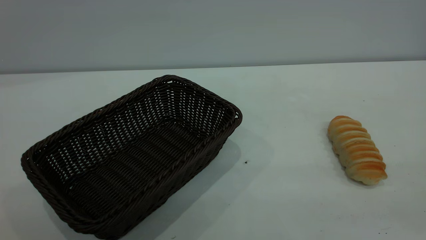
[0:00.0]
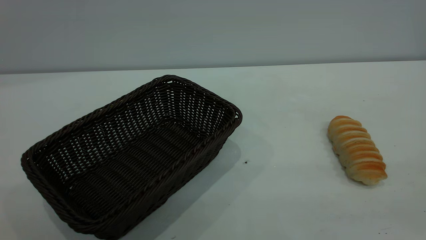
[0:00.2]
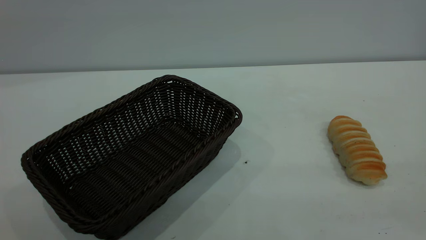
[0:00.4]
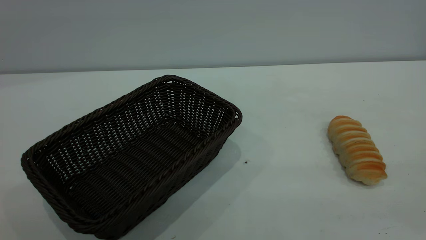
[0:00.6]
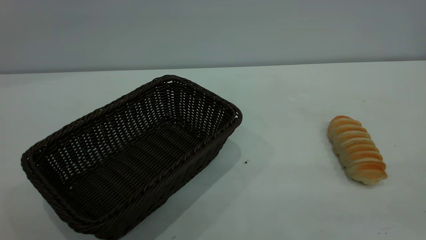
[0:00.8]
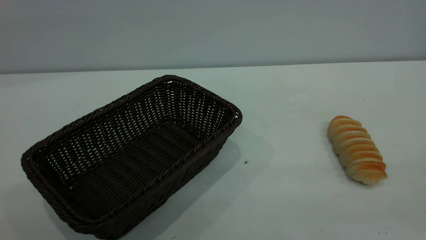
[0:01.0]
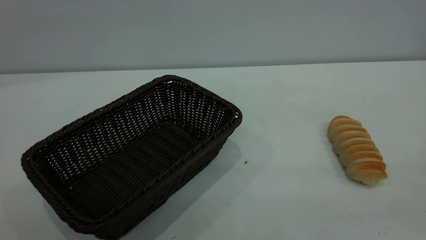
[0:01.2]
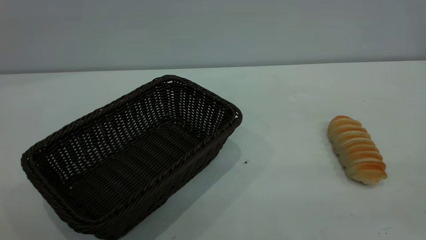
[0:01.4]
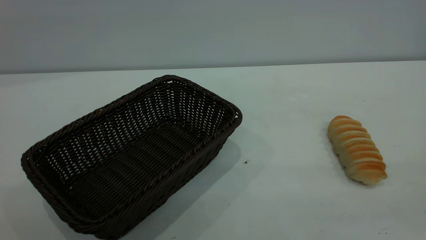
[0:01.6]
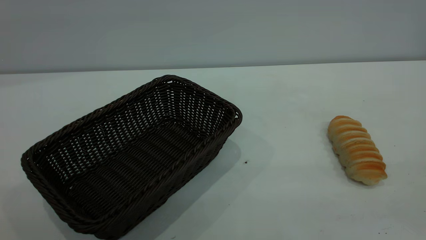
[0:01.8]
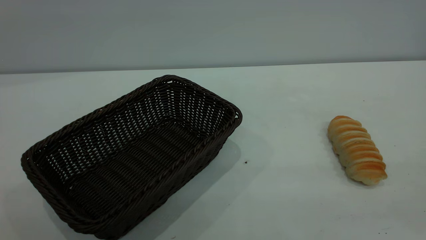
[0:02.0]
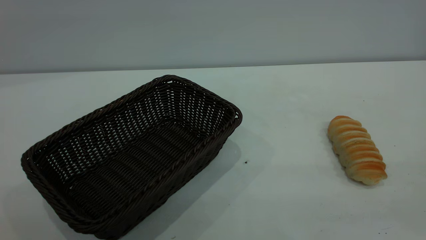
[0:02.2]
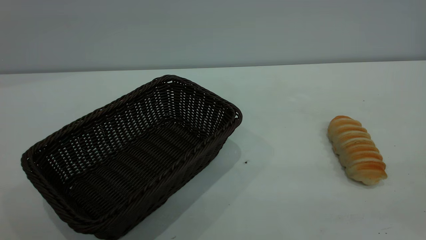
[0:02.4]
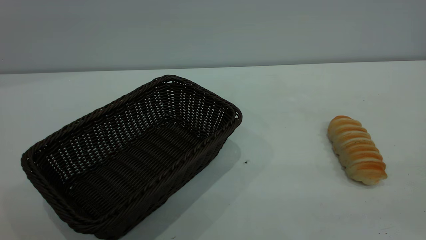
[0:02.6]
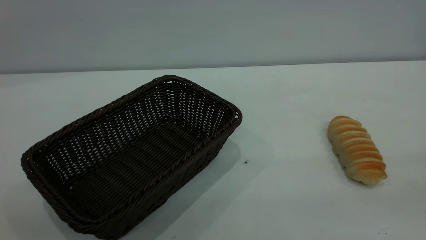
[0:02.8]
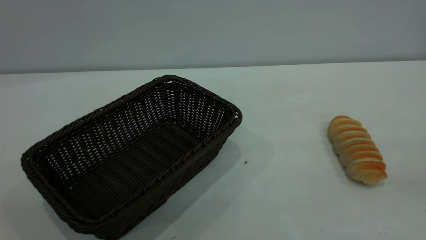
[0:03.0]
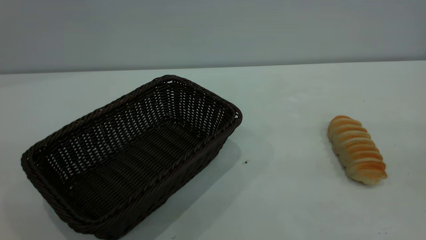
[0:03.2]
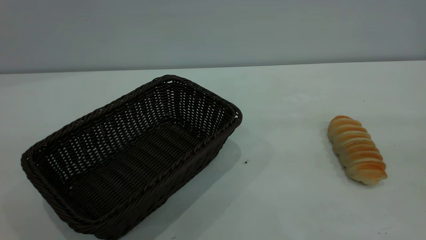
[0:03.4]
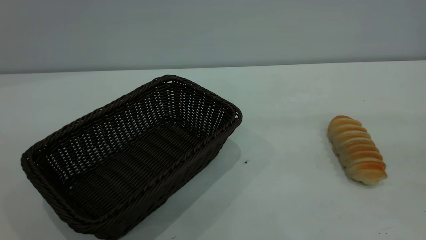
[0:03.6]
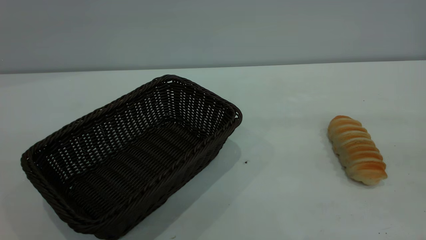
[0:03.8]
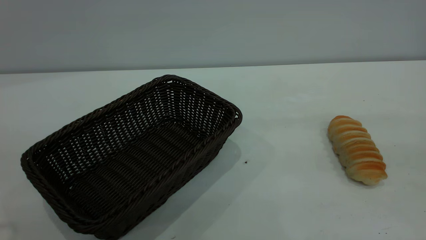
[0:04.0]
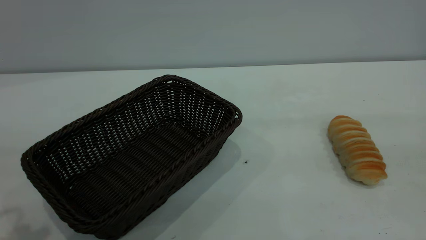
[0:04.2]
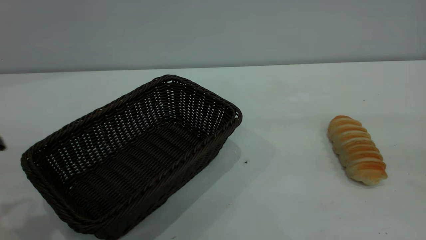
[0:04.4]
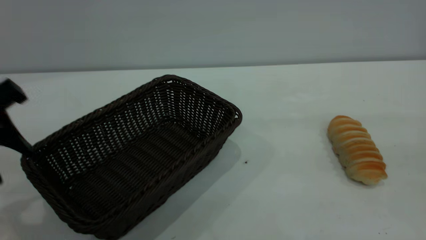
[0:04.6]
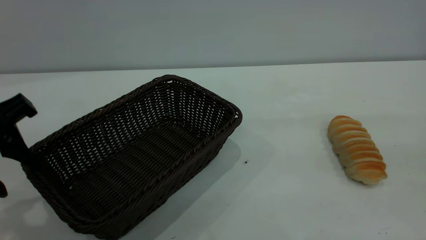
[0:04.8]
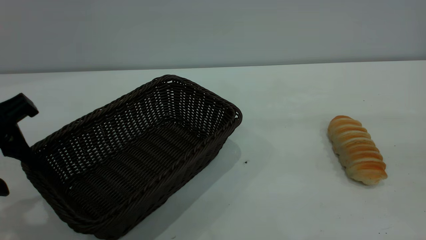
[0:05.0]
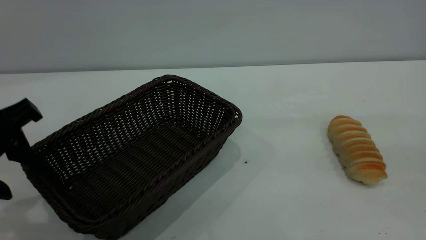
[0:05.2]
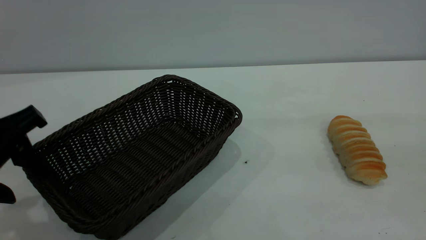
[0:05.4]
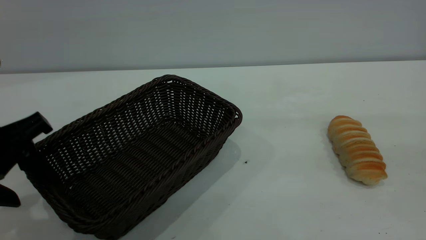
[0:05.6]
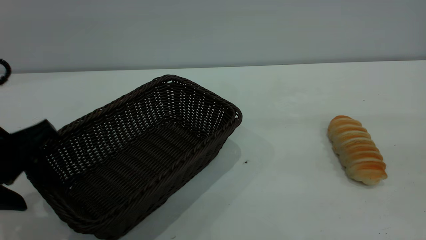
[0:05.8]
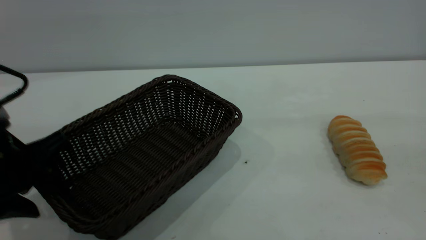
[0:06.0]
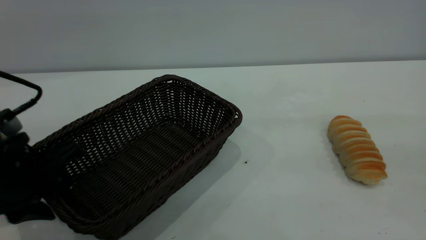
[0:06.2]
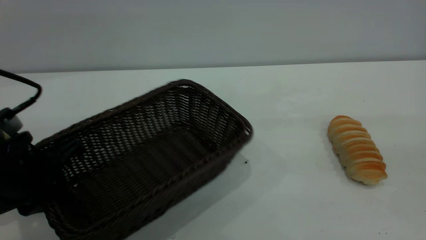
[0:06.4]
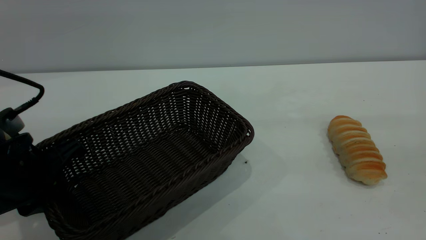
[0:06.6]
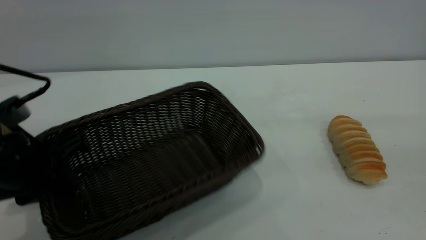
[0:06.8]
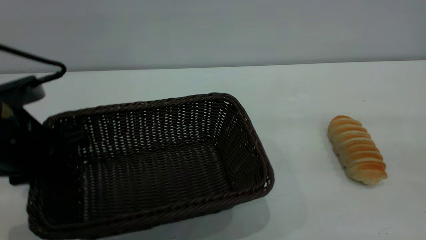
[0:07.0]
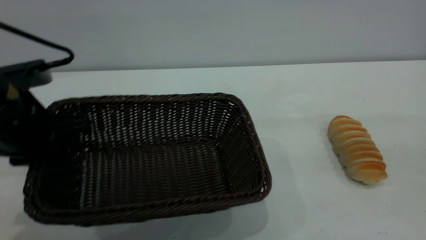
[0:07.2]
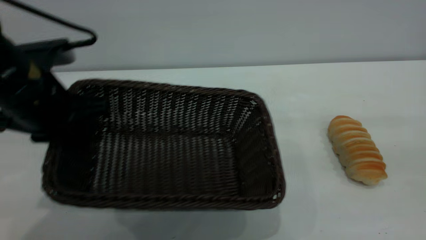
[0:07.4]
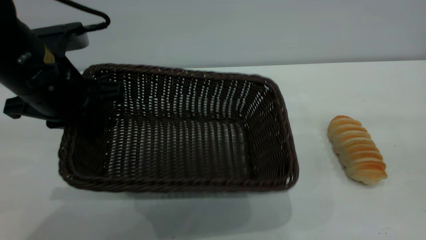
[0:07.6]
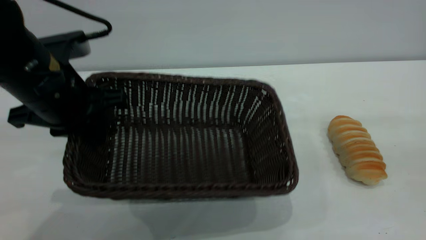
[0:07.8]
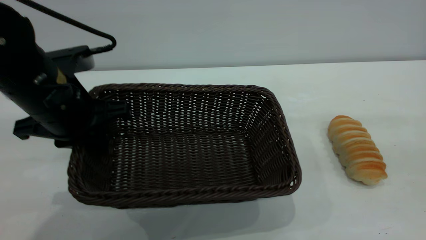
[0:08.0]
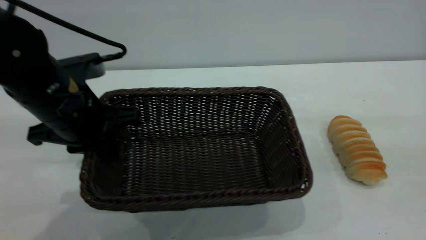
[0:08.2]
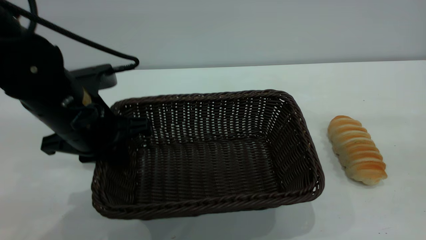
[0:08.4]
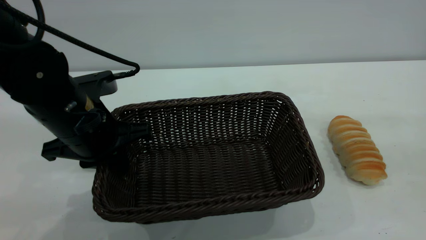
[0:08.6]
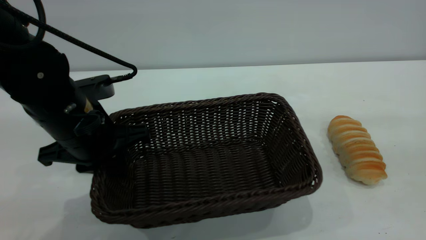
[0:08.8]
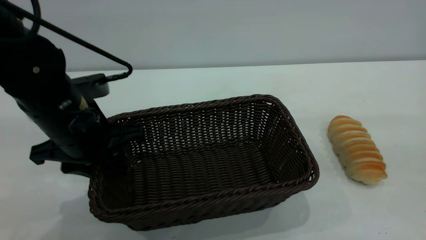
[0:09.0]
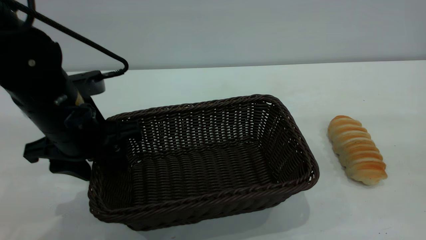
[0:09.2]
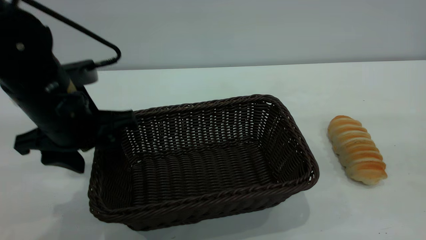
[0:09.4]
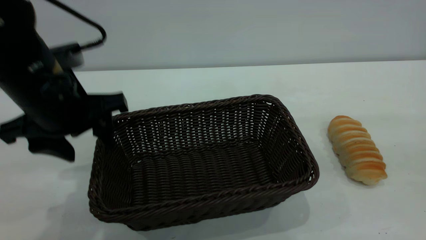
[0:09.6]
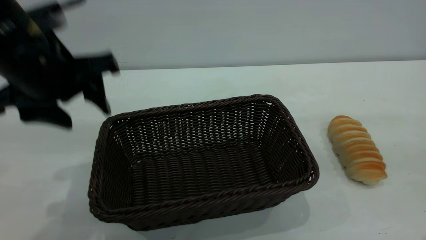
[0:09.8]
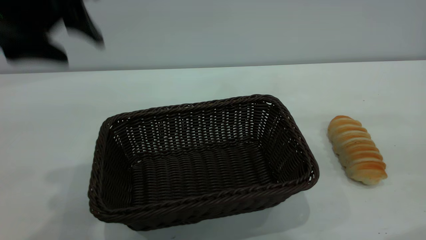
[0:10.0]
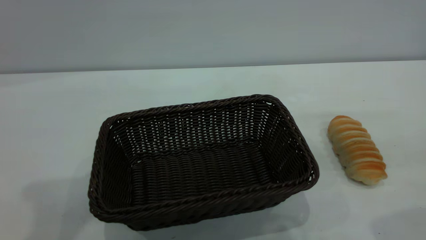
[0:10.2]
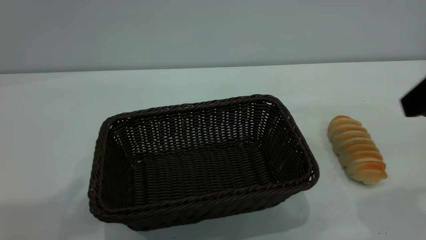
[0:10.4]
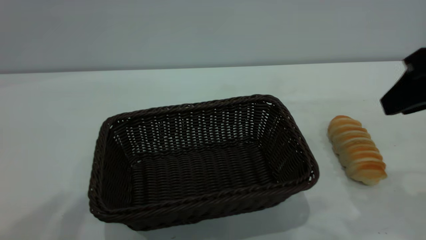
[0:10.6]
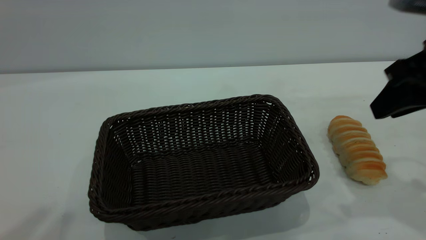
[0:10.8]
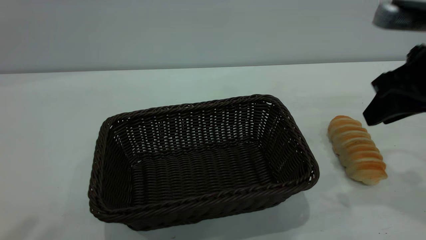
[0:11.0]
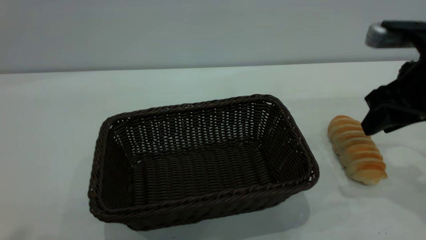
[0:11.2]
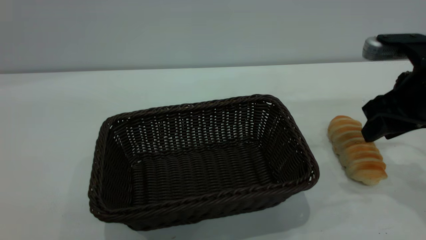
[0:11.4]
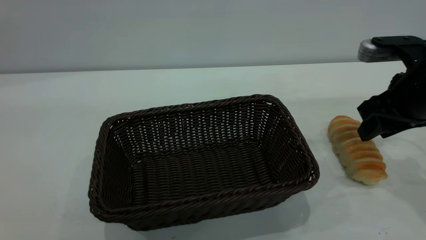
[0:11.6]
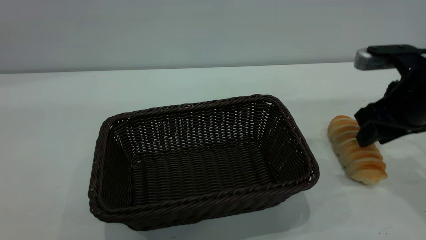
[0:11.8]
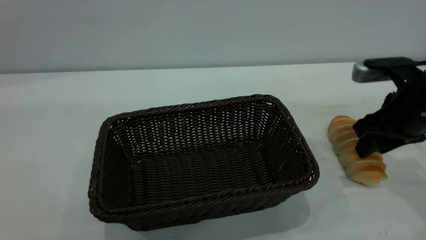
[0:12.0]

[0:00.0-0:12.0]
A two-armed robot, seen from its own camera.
Task of the whole recording: One hand grasps the black basket and places it in the middle of the table, while the other hand picks up the long bread and puts it into the black basket.
Step, 0:00.0 to 0:09.8: Move the basket to the center of view.
0:00.0 to 0:01.6: Both grippers stay about where they are.
0:04.4 to 0:06.0: The left gripper goes some 10 cm downward.
0:06.0 to 0:07.6: The left gripper heads forward, to the right and upward, covering some 10 cm, and closes up.
0:07.6 to 0:09.0: The left gripper shifts roughly 5 cm downward, and opens its fingers.
0:09.0 to 0:10.4: The right gripper travels forward by approximately 10 cm, while the left gripper travels upward by about 30 cm.
0:10.4 to 0:12.0: The right gripper shifts some 20 cm downward and forward.

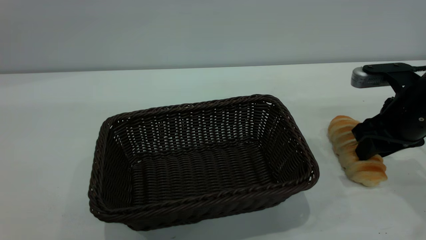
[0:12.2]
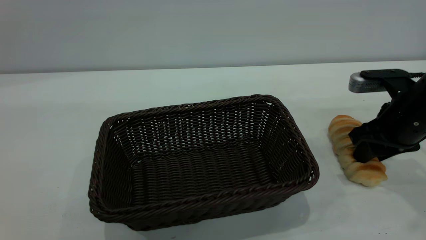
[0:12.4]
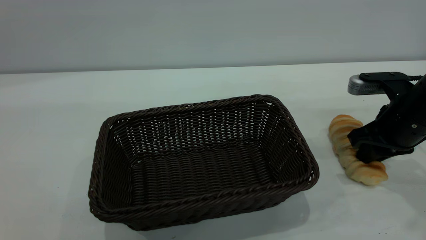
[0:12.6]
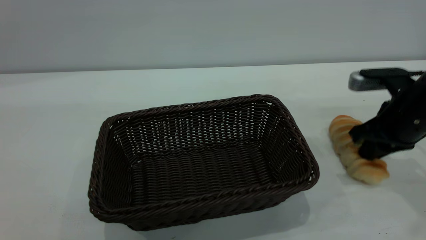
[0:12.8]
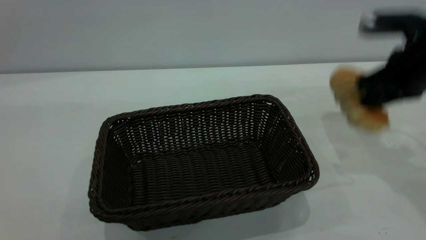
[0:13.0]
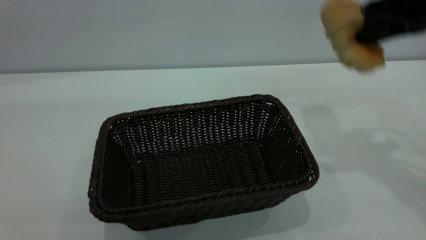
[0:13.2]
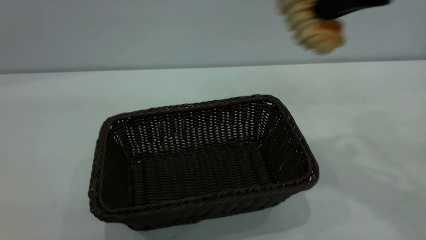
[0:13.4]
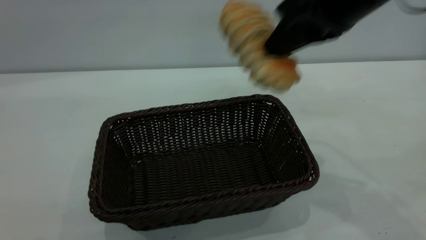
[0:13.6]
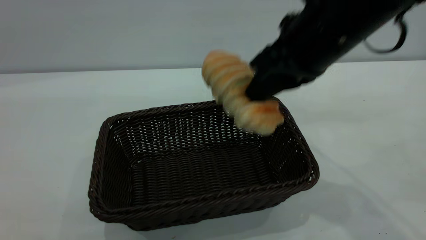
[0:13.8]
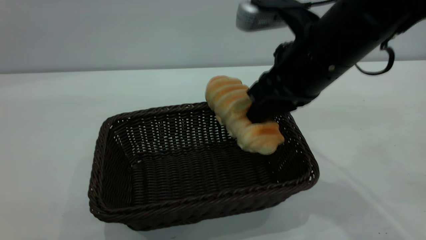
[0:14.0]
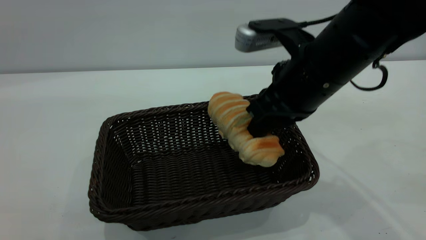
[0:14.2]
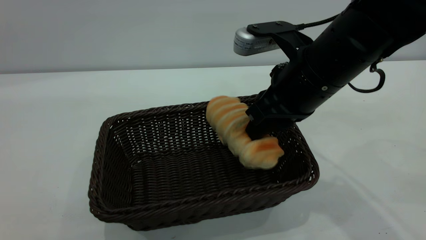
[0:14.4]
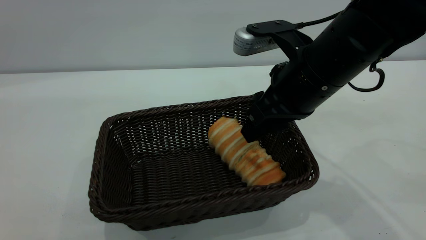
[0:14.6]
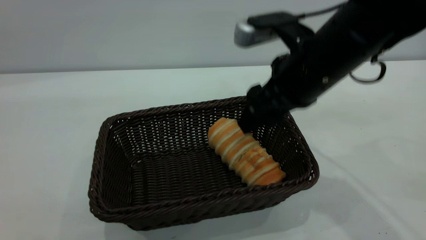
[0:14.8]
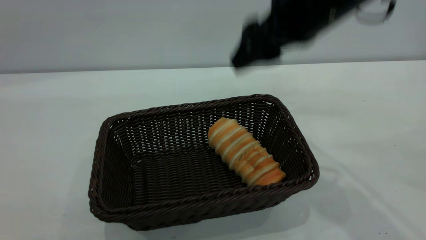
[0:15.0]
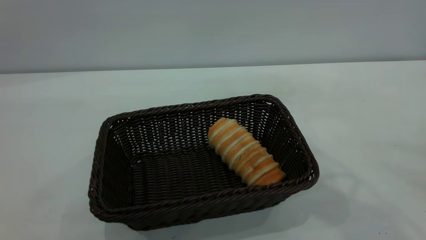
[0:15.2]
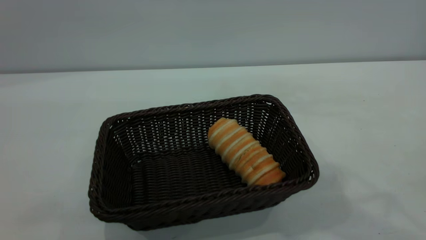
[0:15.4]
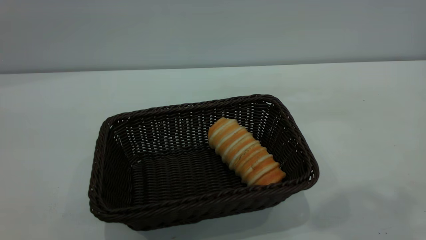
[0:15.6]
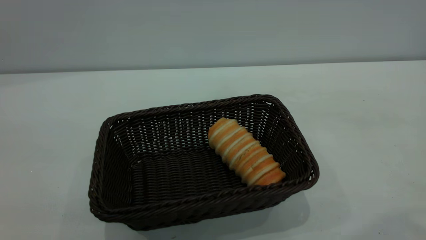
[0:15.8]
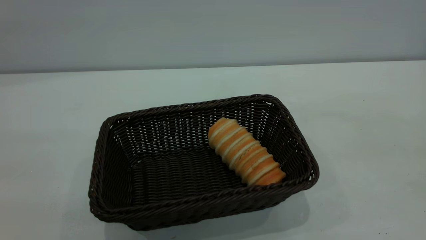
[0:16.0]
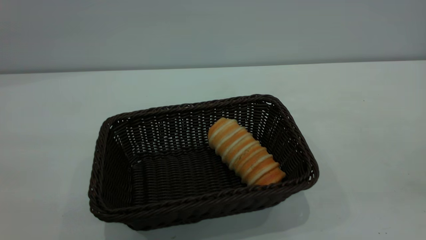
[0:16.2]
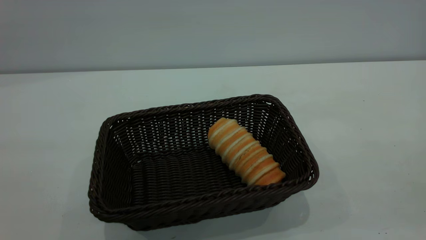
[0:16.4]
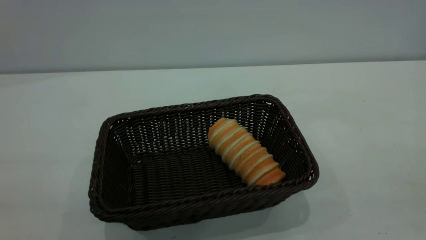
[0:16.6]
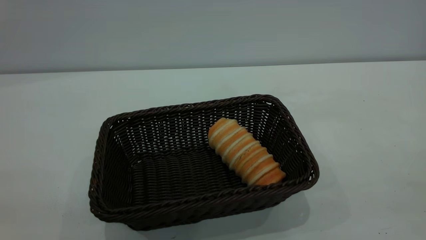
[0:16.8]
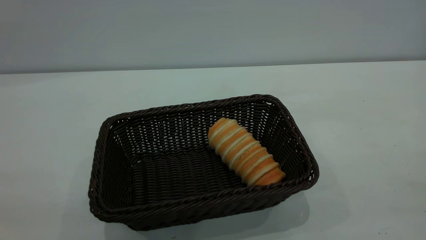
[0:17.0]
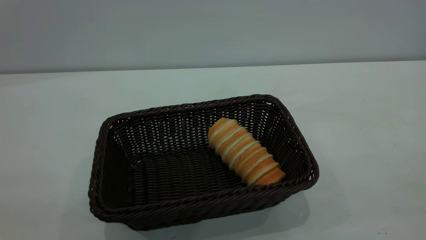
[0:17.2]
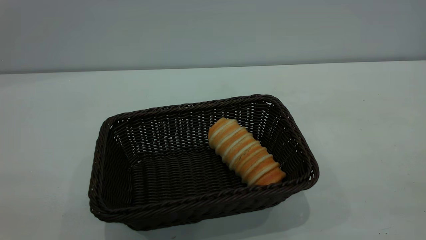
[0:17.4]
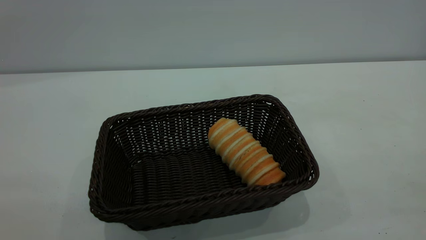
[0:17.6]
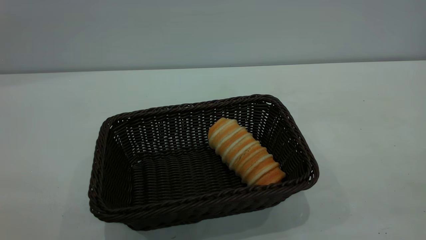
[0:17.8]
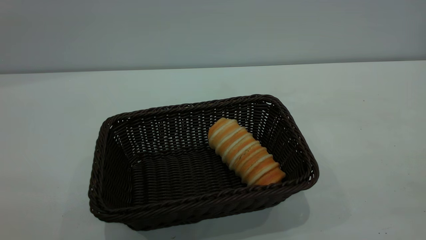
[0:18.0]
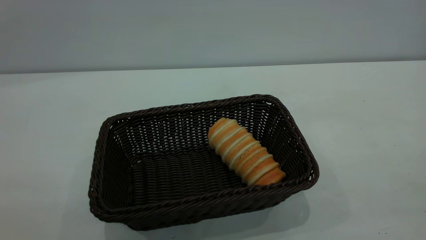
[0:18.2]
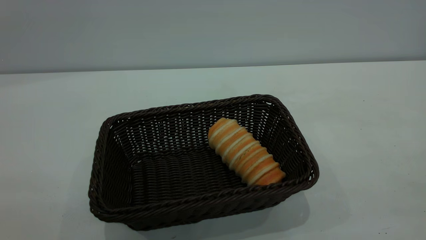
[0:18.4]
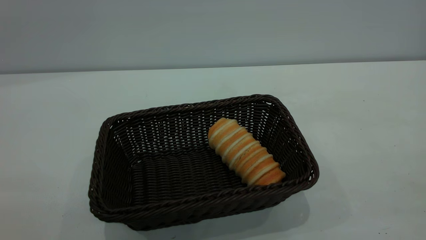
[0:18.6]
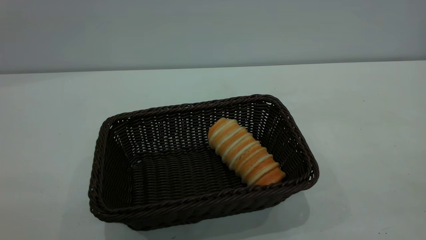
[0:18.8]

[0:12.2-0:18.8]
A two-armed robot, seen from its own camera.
Task of the whole recording: One hand grasps the black basket and places it in the middle of the table, while the other hand picks up the long bread and puts it into the black basket.
Step, 0:13.2 to 0:14.8: place the bread into the basket.
0:12.2 to 0:13.8: The right gripper heads to the left and upward, covering roughly 20 cm, and closes its fingers.
0:13.8 to 0:15.4: The right gripper heads upward, covering about 15 cm, and opens its fingers.
